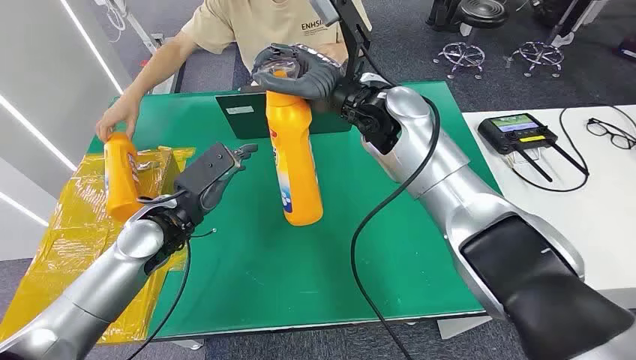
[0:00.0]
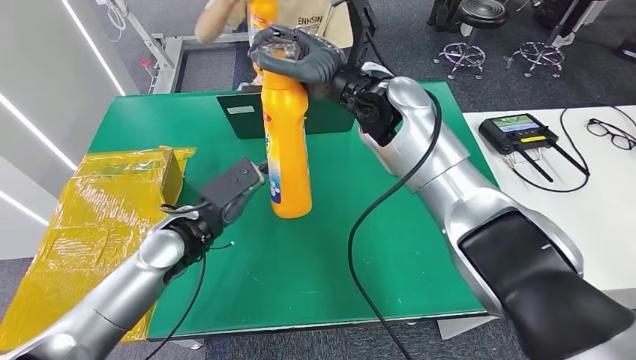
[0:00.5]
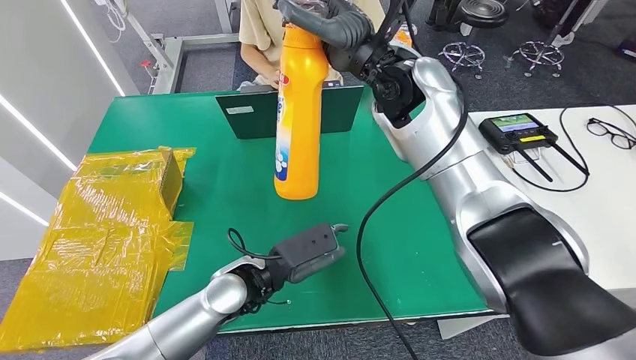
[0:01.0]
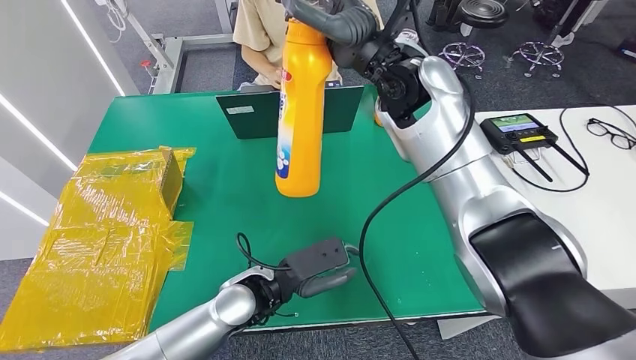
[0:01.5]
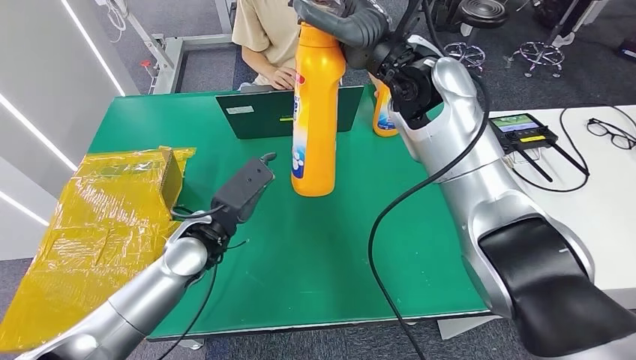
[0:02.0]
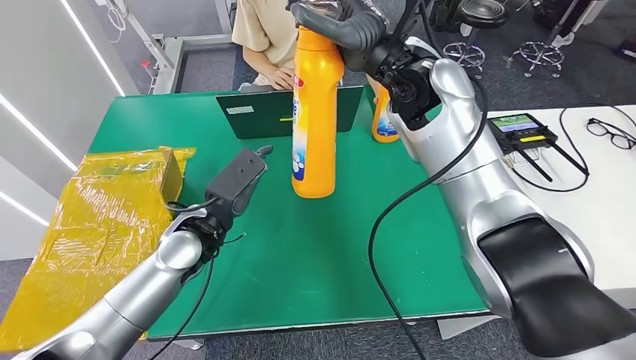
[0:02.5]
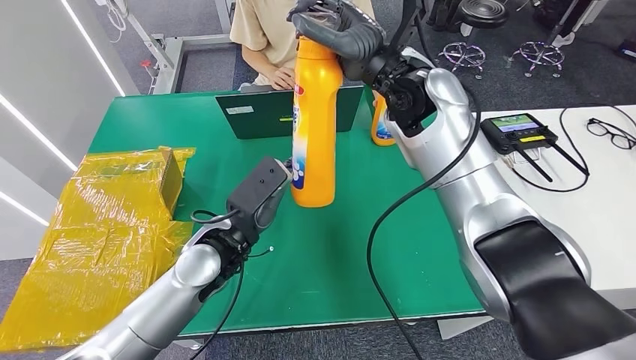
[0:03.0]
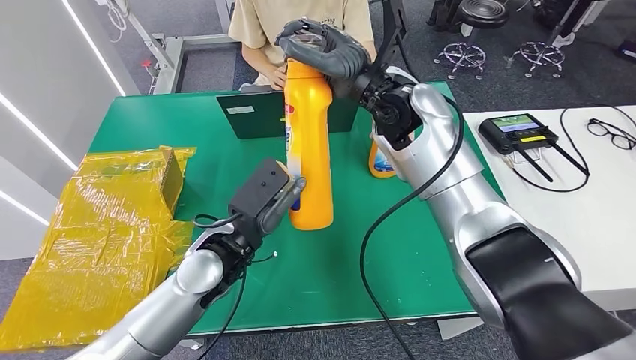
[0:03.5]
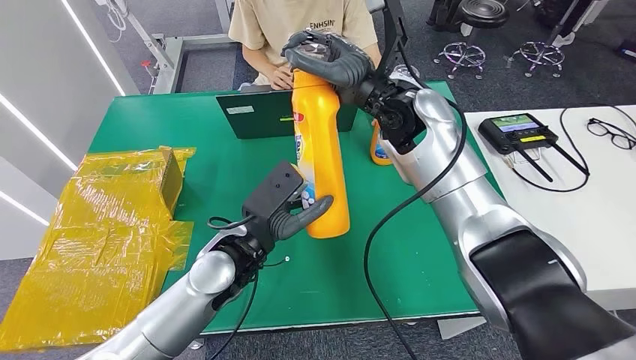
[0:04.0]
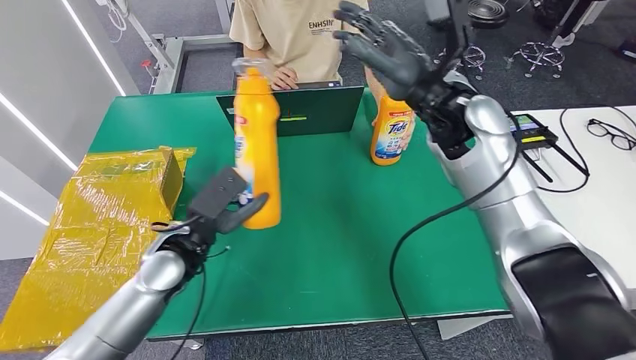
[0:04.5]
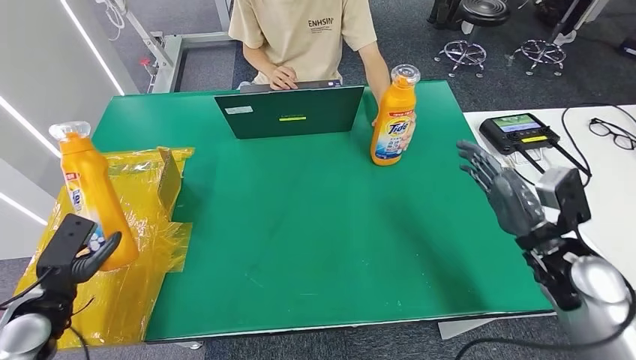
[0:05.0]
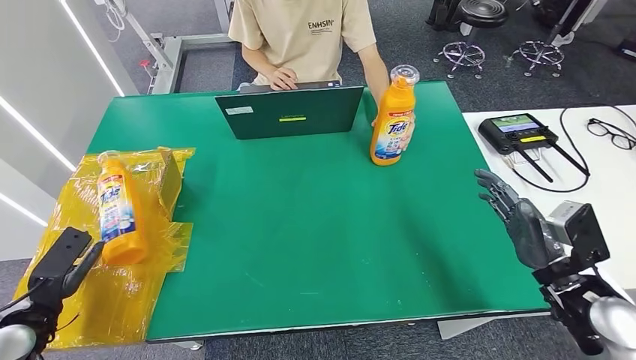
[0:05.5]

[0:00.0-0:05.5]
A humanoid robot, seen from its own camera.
Step, 0:00.0 to 0:02.5: Pick up the bottle from the table.
Step, 0:03.0 to 0:05.5: Turn the bottle to the front side.
